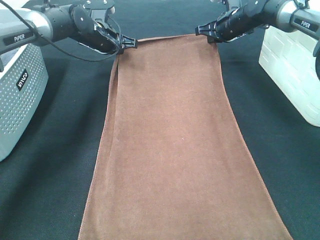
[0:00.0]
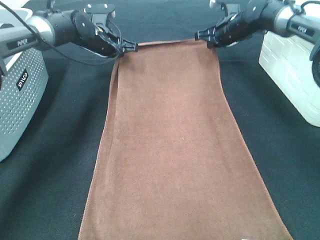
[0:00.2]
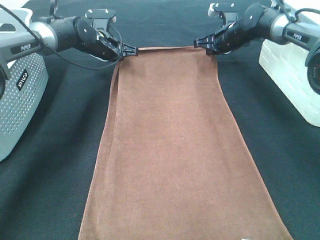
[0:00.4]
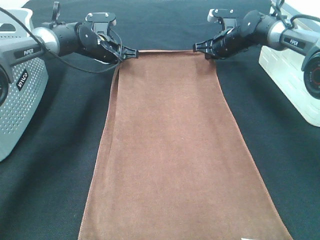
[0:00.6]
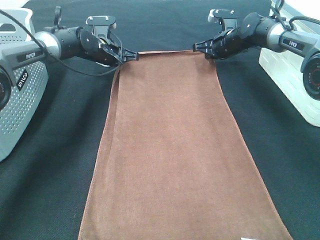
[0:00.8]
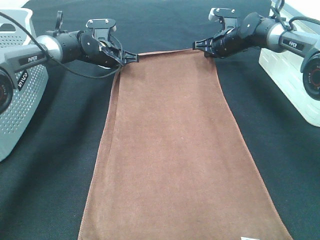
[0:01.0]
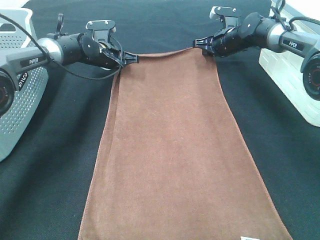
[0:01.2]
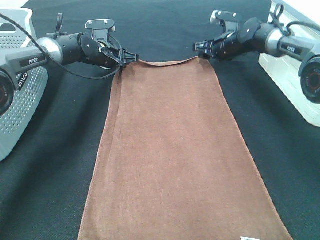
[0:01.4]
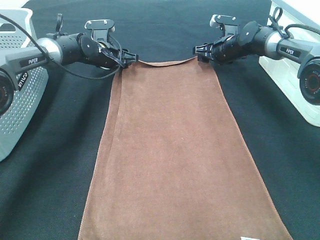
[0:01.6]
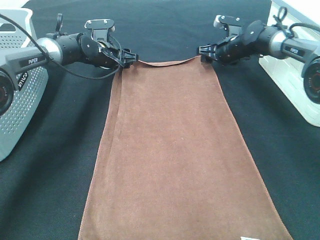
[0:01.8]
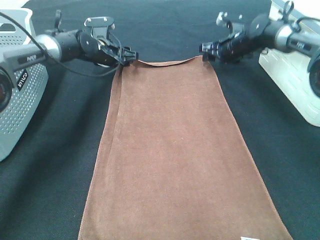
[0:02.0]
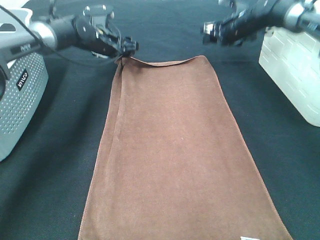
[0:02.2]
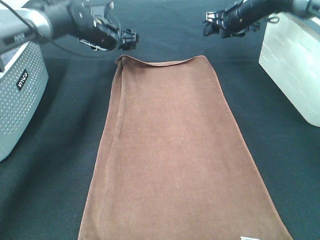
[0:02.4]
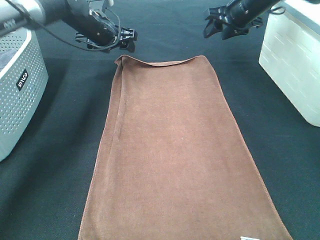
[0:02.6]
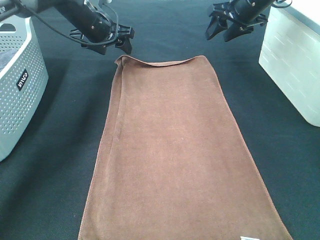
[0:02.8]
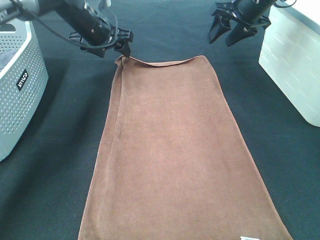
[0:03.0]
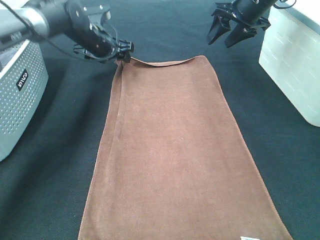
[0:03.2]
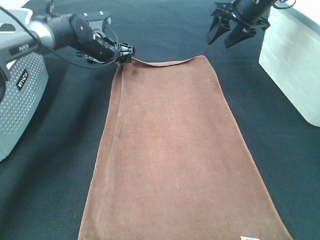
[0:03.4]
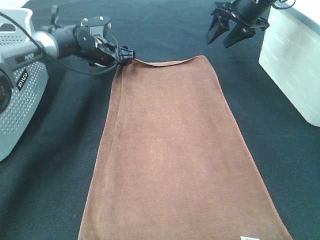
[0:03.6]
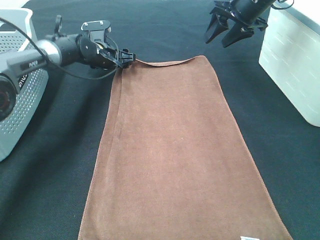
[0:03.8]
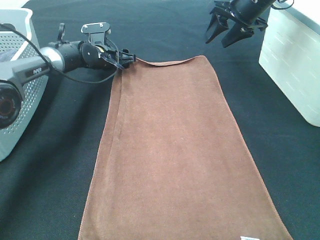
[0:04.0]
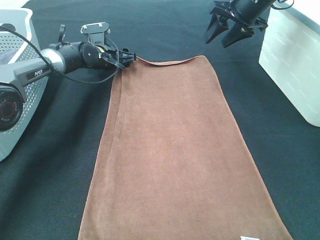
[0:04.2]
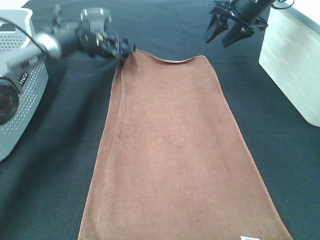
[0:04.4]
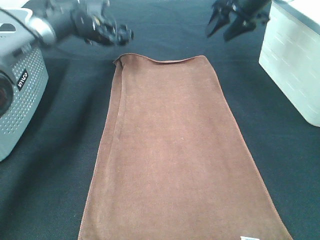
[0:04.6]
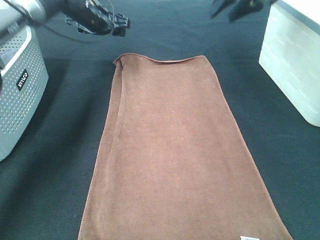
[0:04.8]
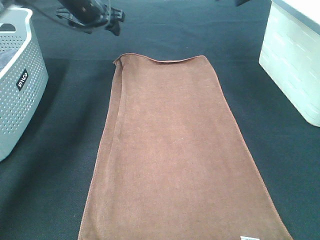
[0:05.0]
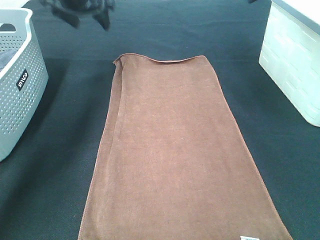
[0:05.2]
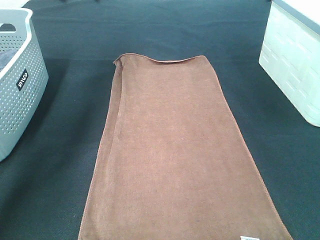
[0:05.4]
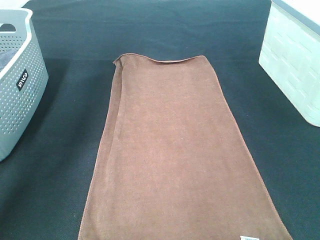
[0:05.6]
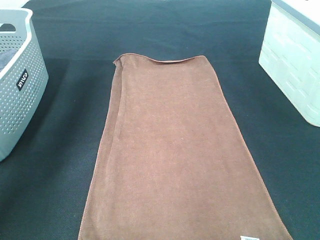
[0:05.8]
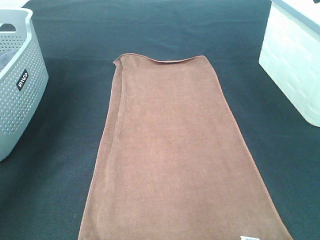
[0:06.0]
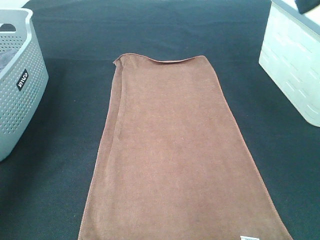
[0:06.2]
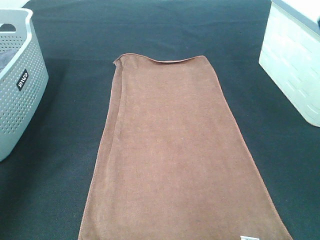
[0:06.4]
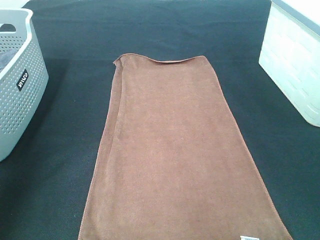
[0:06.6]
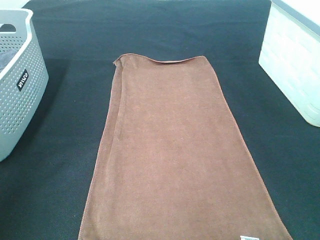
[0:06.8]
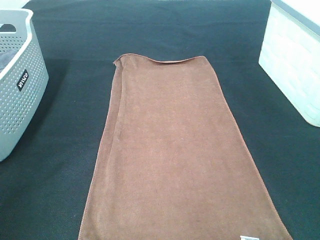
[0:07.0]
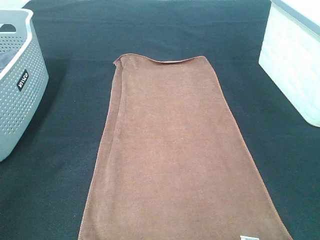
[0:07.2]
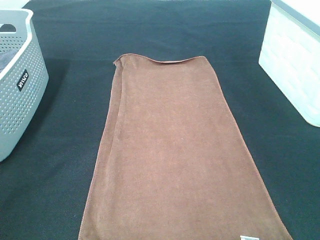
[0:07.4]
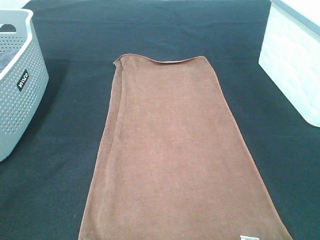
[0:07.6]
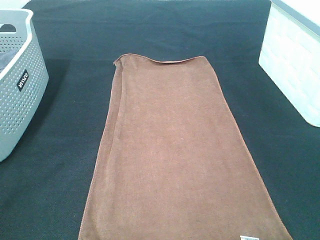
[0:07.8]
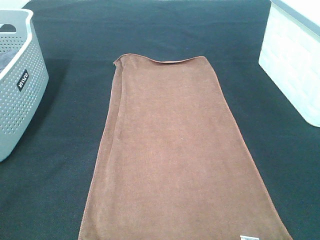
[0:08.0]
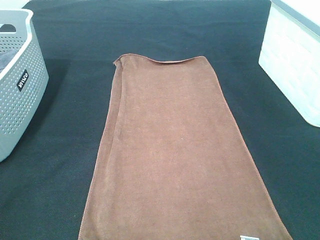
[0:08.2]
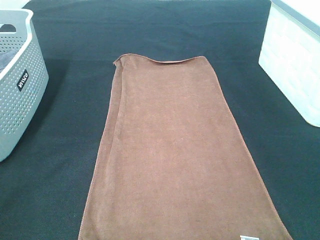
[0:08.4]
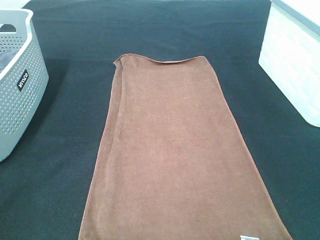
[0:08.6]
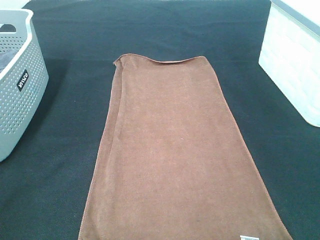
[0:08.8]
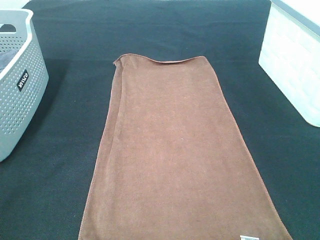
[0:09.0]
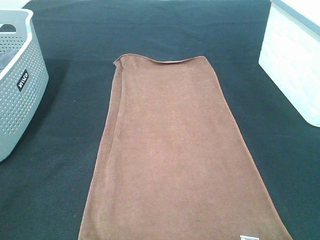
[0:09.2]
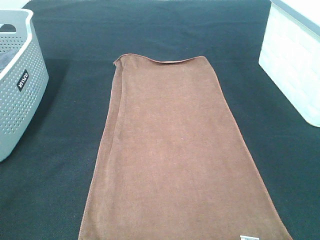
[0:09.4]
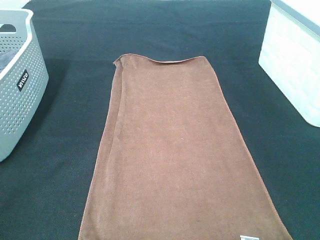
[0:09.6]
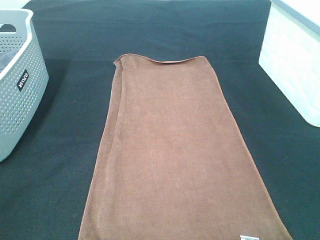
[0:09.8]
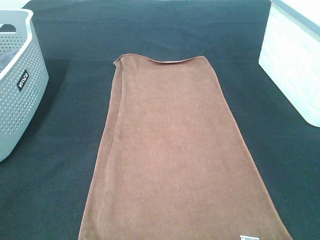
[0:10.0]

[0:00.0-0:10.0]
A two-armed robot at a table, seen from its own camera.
Task of the whole recording: Remove the towel and place it.
0:00.0 to 0:01.4: The two grippers go about 5 cm downward. The right gripper opens its fingers; the left gripper opens up.
0:01.4 to 0:02.8: The right gripper is displaced upward and backward by some 15 cm, while the left gripper goes roughly 10 cm upward.
0:02.8 to 0:04.2: The left gripper shifts some 15 cm downward and forward.
0:04.2 to 0:05.8: The right gripper heads backward and upward, covering about 30 cm. Meanwhile the left gripper travels upward and backward by approximately 35 cm.
0:05.8 to 0:07.2: The left gripper goes approximately 40 cm backward.

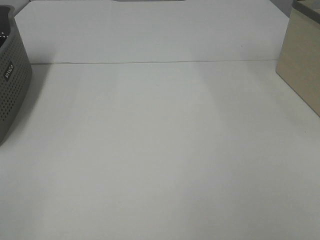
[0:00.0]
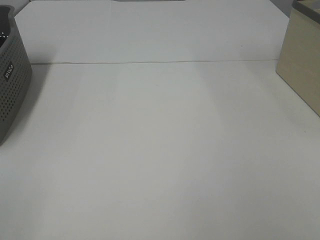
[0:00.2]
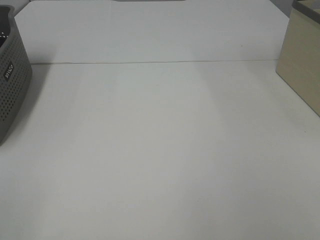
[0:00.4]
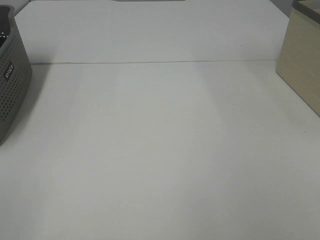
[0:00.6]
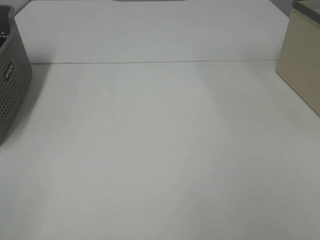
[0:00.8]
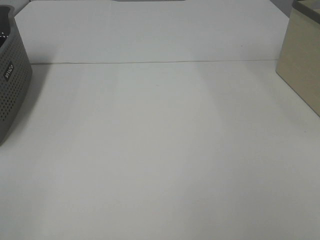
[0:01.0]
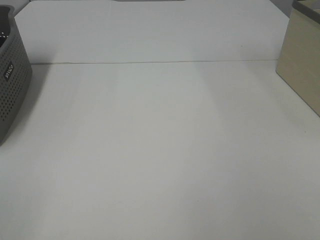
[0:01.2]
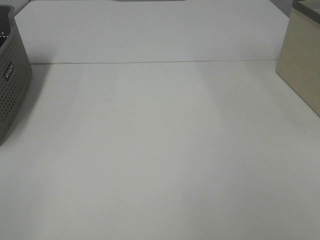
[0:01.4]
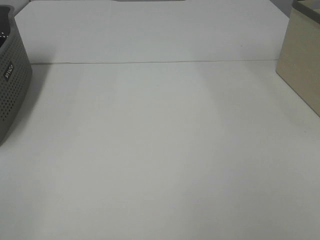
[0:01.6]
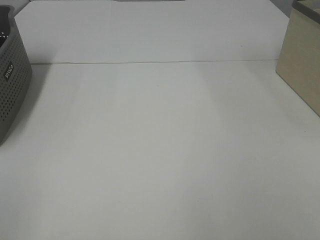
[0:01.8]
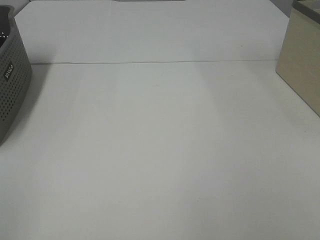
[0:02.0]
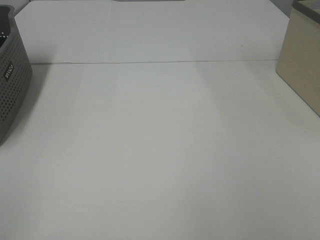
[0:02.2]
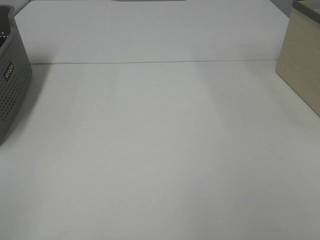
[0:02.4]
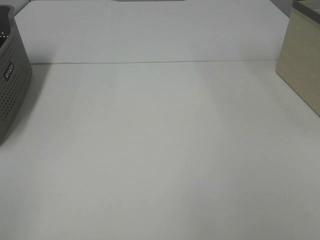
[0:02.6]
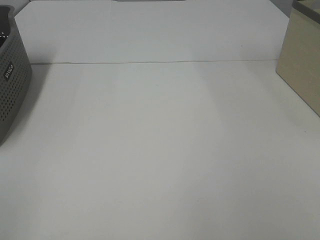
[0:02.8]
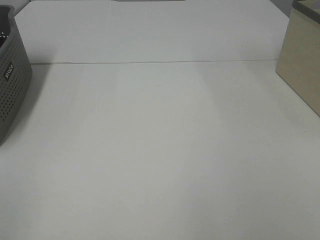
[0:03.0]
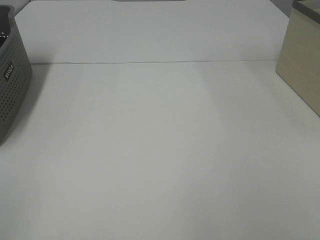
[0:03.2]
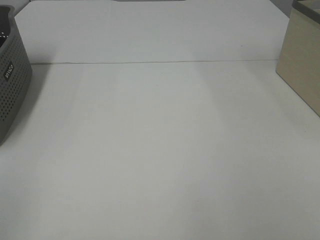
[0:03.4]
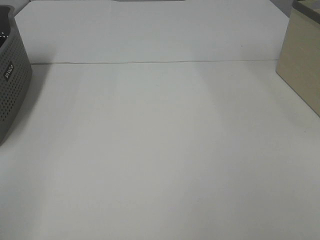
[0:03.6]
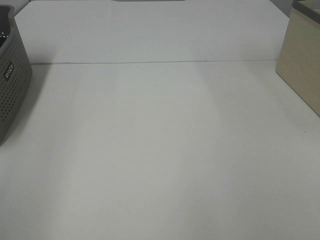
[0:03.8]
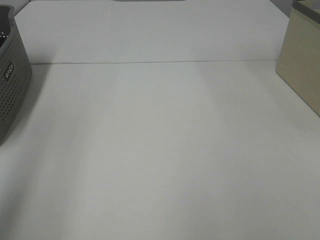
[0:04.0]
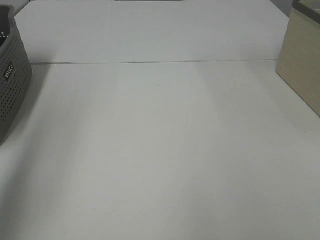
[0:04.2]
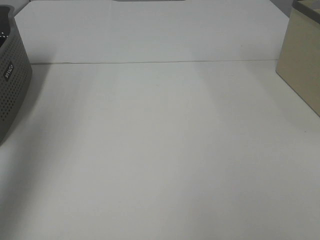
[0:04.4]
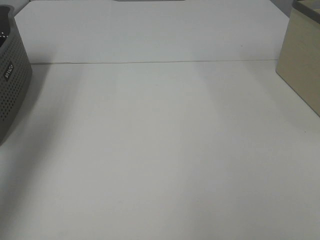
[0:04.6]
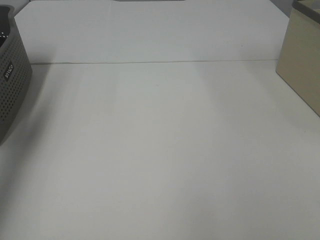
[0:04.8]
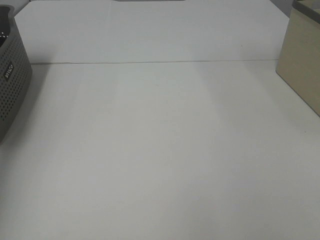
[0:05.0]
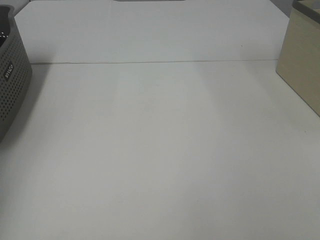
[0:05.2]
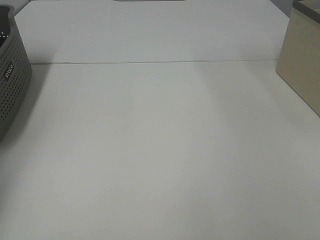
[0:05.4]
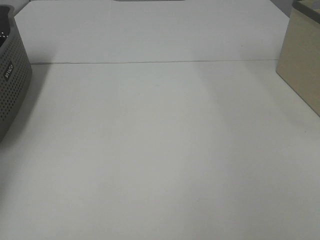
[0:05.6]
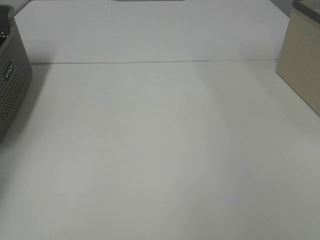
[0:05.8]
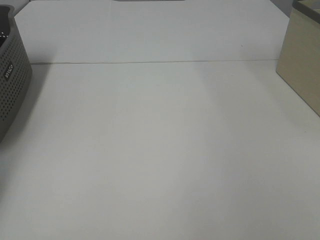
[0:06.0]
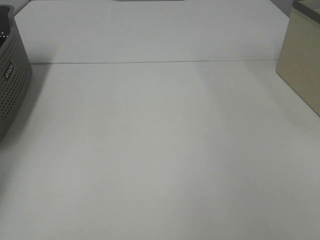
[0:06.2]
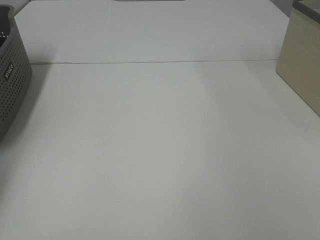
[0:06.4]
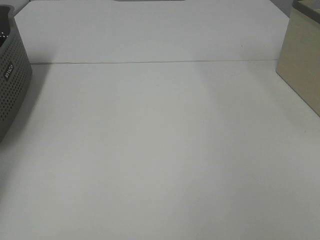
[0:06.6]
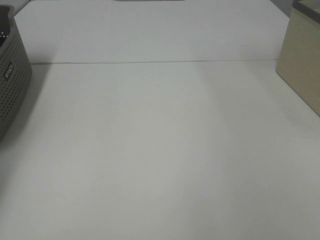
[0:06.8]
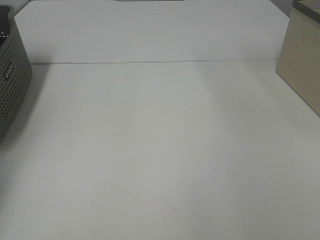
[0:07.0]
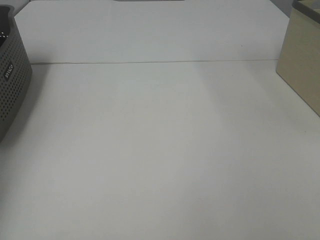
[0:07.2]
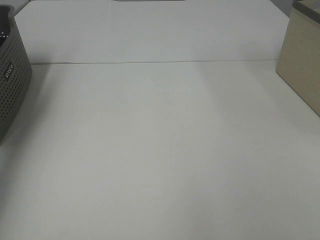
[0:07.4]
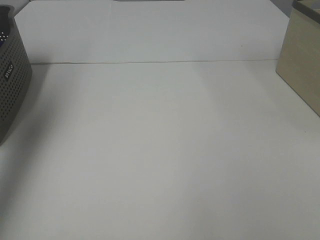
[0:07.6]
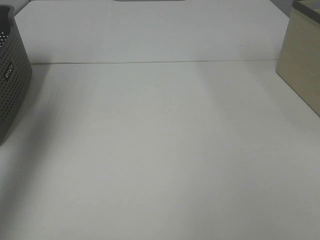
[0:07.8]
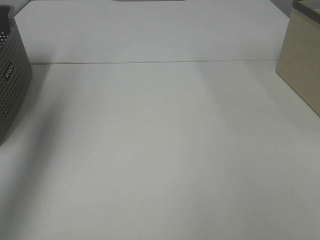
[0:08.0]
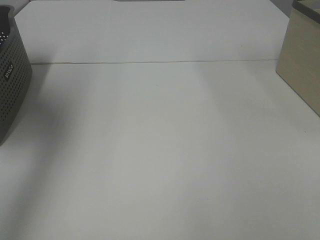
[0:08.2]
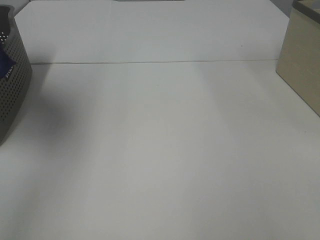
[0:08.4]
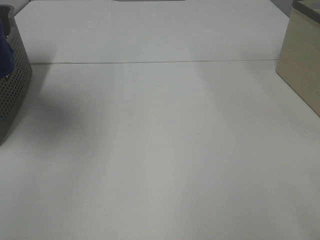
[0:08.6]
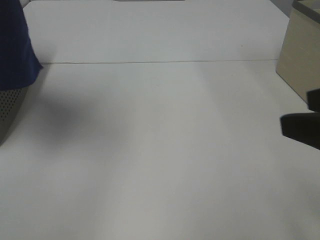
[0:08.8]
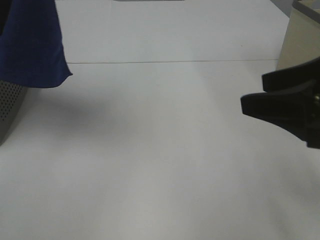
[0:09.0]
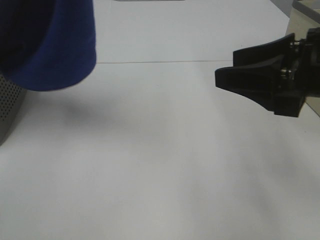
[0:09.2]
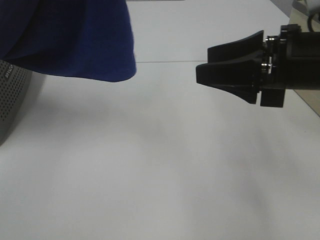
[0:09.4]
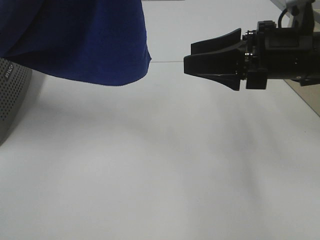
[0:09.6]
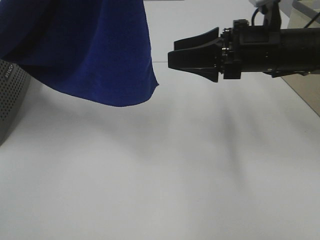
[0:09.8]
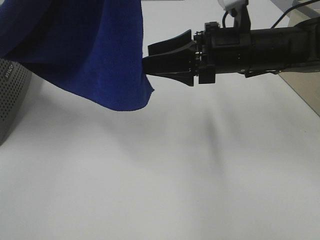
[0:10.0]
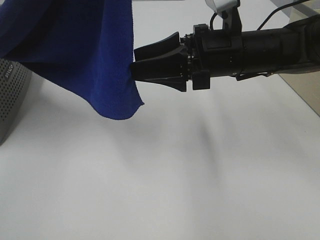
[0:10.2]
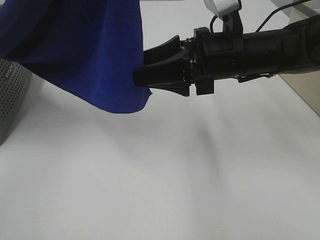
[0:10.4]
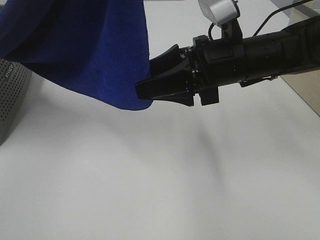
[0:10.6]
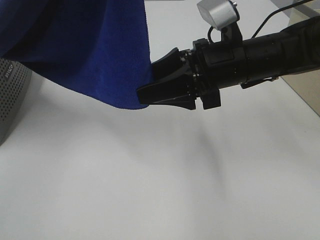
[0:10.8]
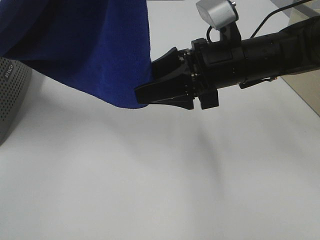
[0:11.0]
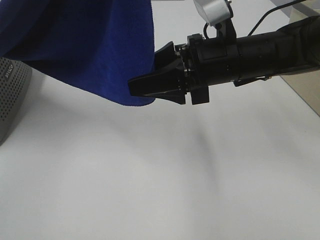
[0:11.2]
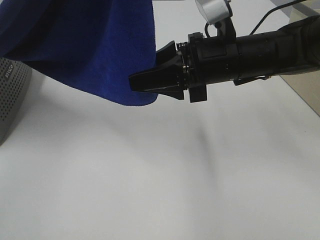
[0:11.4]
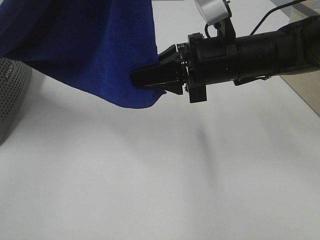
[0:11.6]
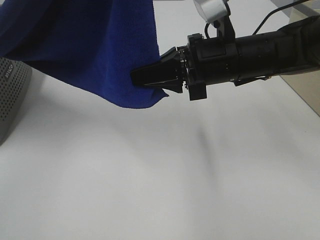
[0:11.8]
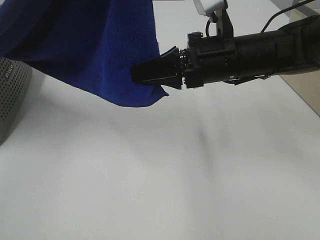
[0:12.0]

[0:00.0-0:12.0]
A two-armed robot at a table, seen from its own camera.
Task of the whole recording: Remove the towel and place it.
0:00.0 to 0:01.6: Neither gripper changes place.
0:03.0 to 0:04.4: The left gripper travels forward and upward by about 30 cm.
0:04.4 to 0:06.0: The left gripper goes approximately 35 cm downward, forward and to the left.
0:06.0 to 0:07.6: The left gripper heads upward and backward, covering some 30 cm, and closes its fingers.
0:07.6 to 0:09.0: The left gripper shifts roughly 20 cm to the right, while the right gripper moves forward and to the left, roughly 20 cm.
0:09.0 to 0:10.4: The right gripper shifts some 20 cm forward, to the left and downward; the left gripper is displaced to the right by about 5 cm.
0:10.4 to 0:12.0: The right gripper closes its fingers.
